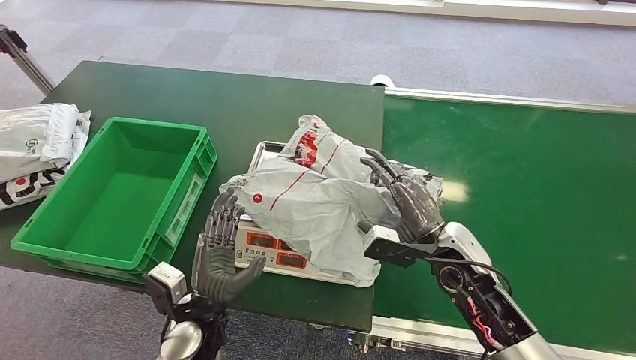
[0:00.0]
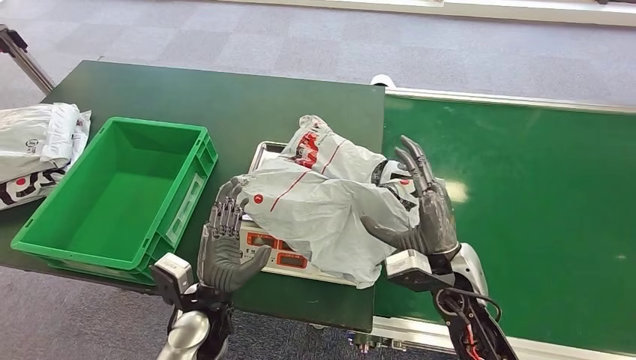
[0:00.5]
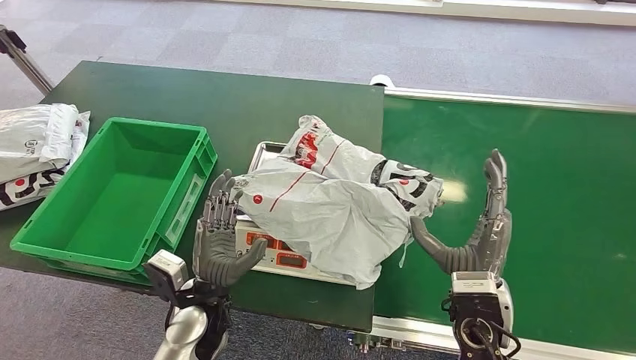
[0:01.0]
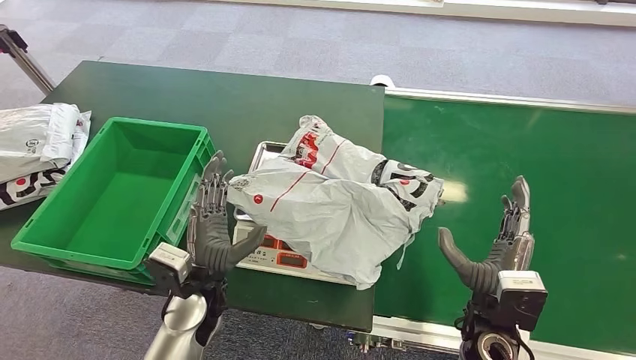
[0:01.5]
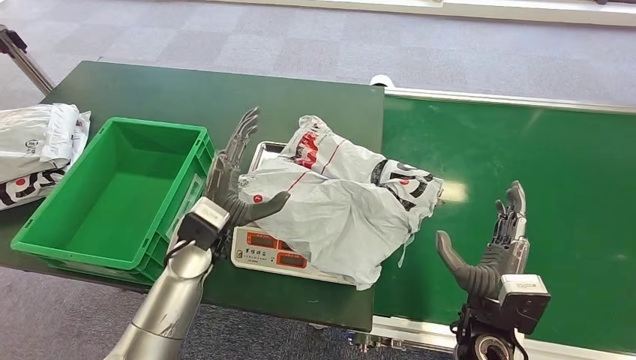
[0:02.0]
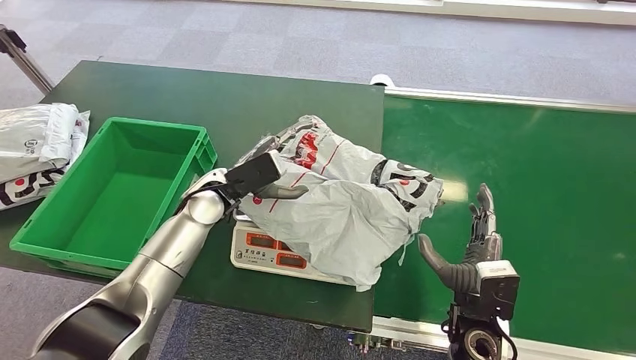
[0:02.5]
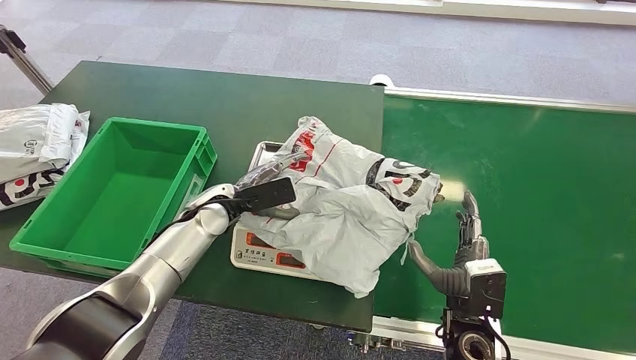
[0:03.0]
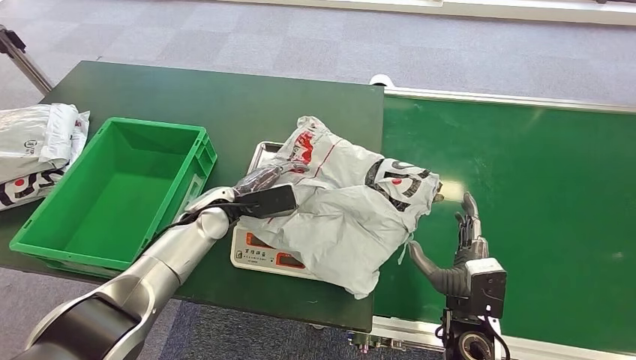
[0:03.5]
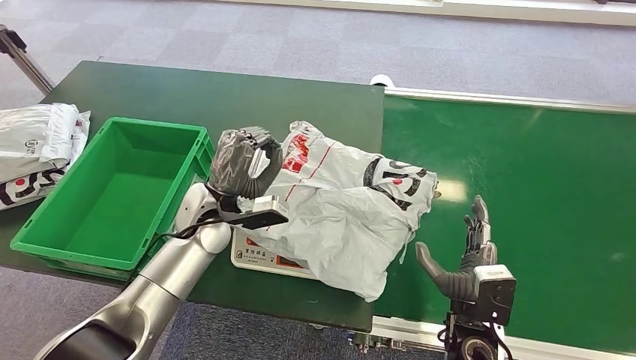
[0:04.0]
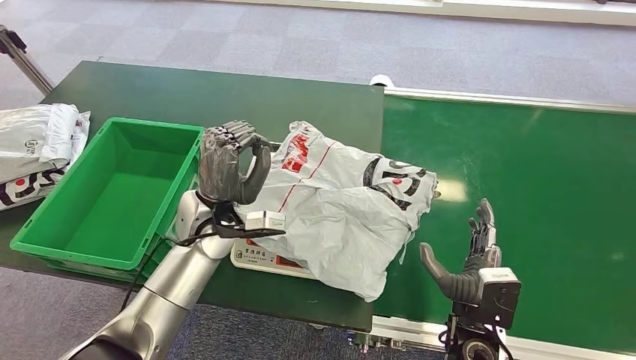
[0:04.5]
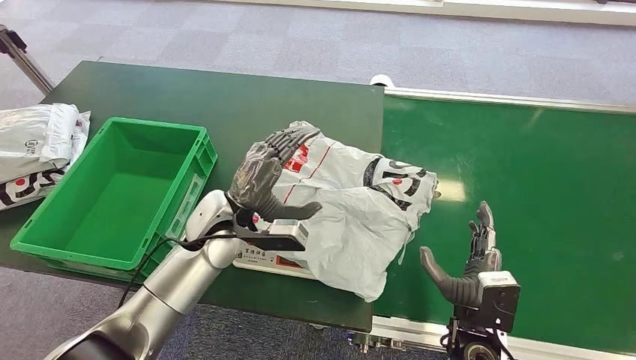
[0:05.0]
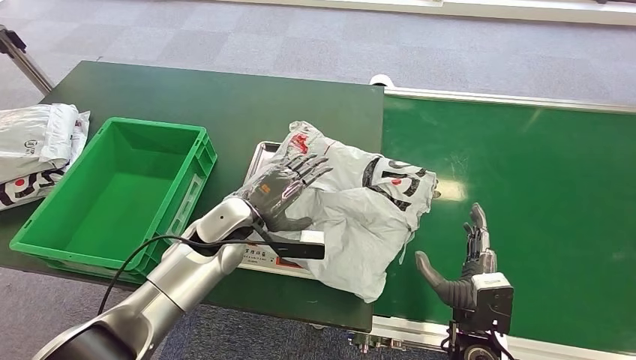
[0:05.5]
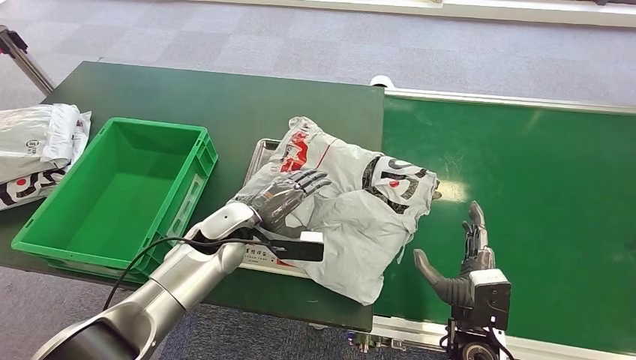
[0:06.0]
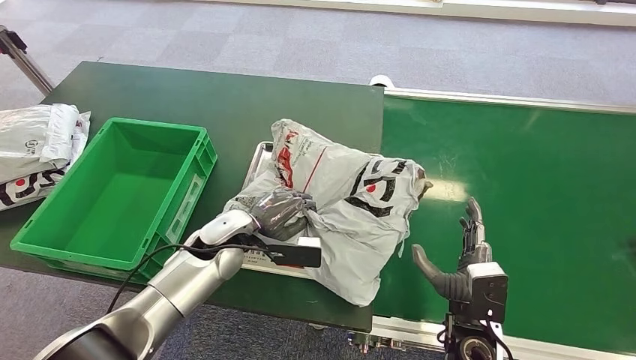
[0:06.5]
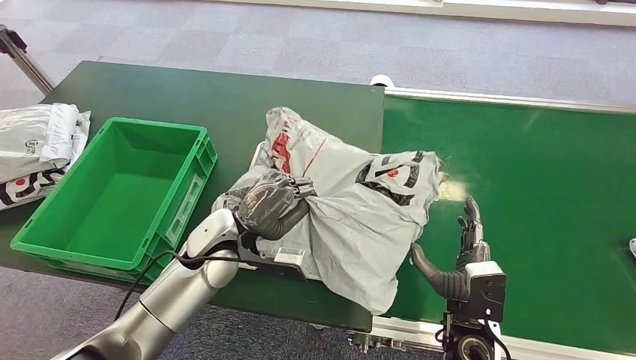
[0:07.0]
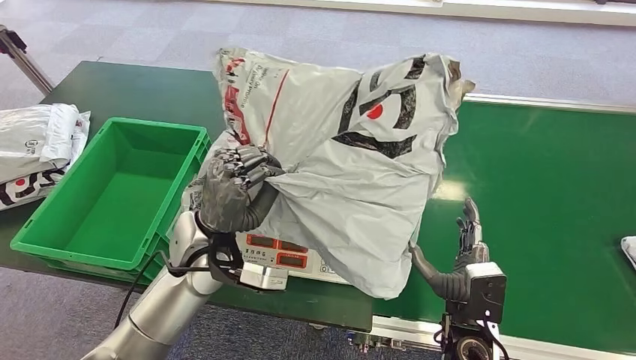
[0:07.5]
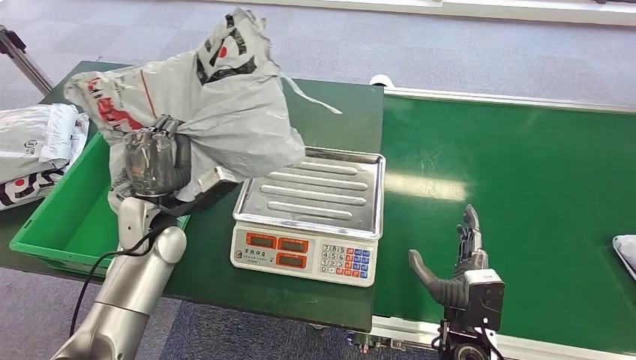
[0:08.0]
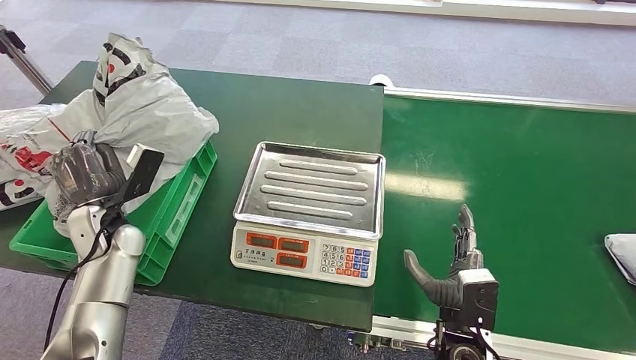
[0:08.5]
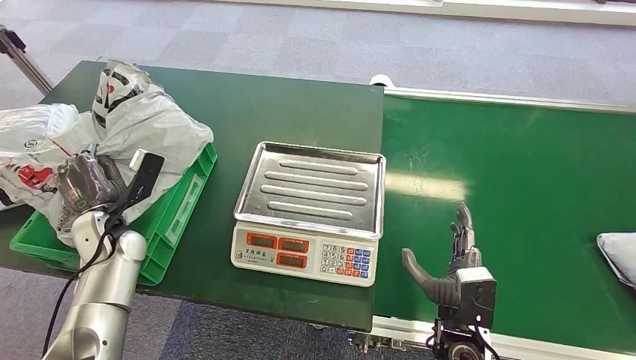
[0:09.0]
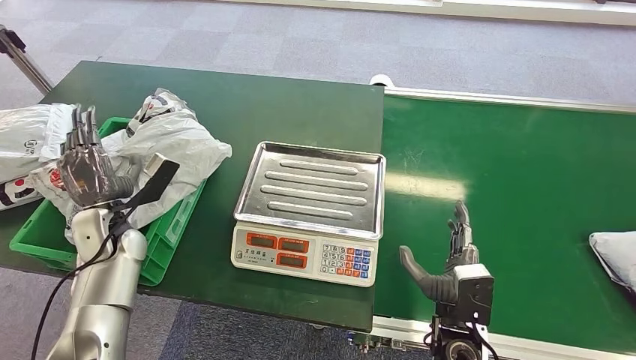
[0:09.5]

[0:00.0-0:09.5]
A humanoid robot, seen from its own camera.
Step, 0:01.0 to 0:08.0: Pick up the package from the inbound machine.
Step, 0:08.5 to 0:09.5: Place the package into the parcel locker.
0:00.0 to 0:02.0: The left hand goes approximately 15 cm forward and upward. The right hand goes roughly 10 cm backward.
0:02.0 to 0:04.0: The left hand moves forward, about 5 cm.
